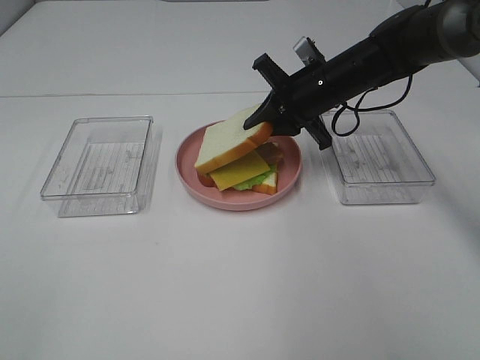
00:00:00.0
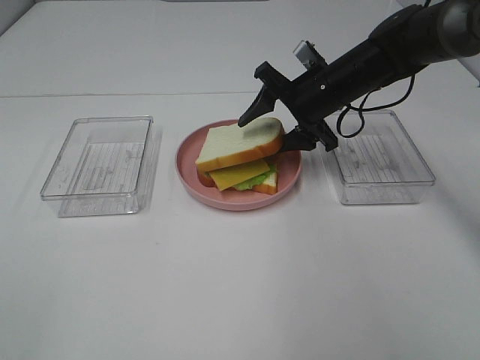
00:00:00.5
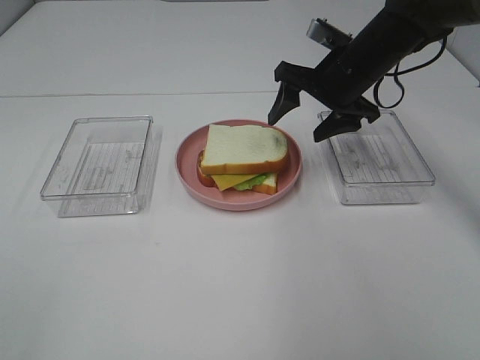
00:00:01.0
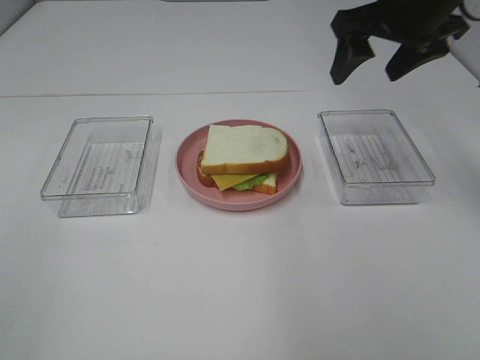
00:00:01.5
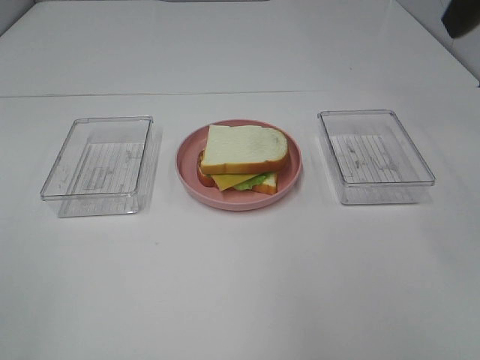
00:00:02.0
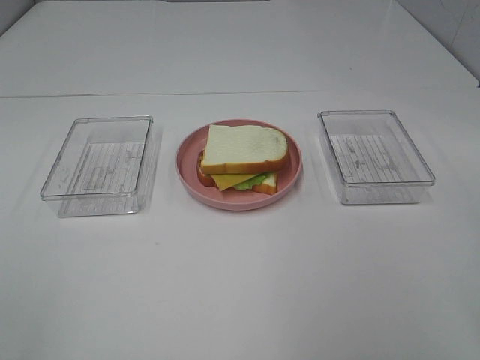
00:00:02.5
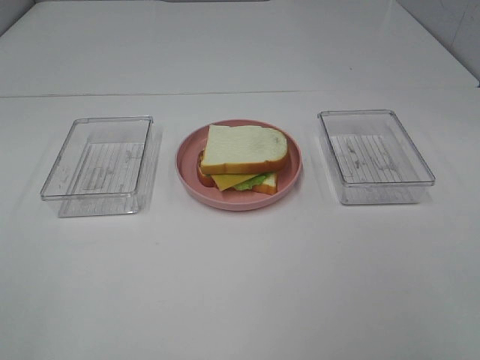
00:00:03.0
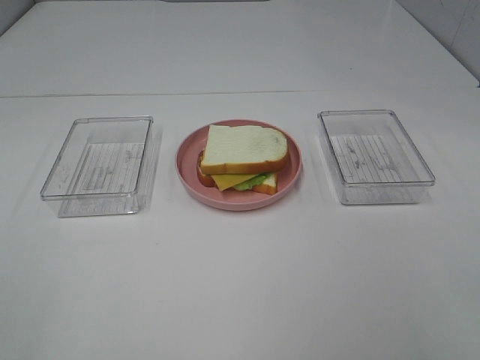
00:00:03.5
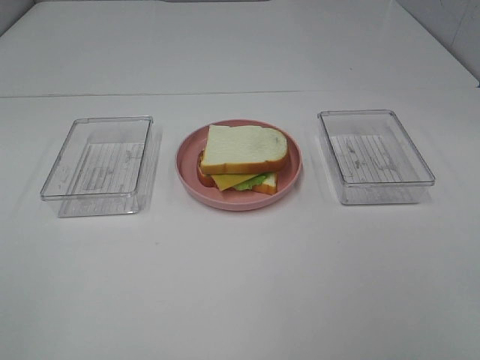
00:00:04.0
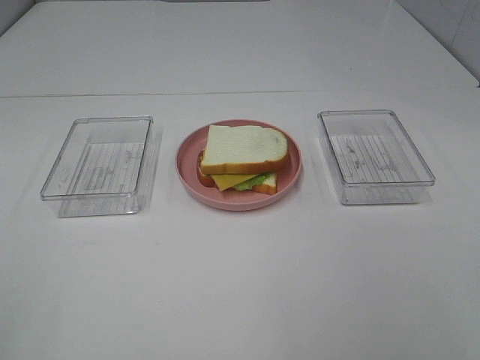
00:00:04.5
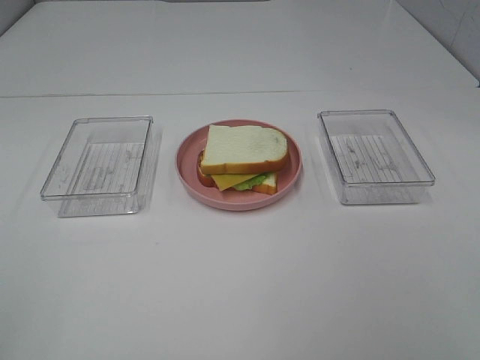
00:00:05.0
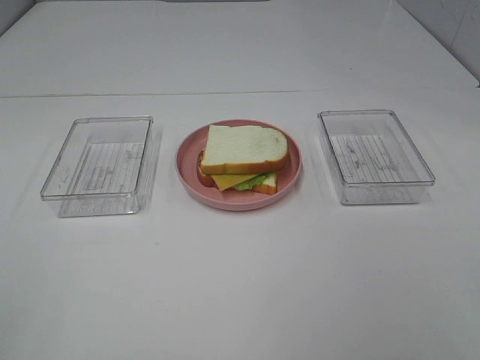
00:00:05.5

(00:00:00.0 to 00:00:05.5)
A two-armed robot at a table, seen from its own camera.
Task of the whole recording: Make sandwiches.
00:00:00.0 - 00:00:02.0: The right gripper moves upward and backward, approximately 30 cm, and opens.
00:00:02.0 - 00:00:03.5: The right gripper is displaced backward and downward by about 25 cm.

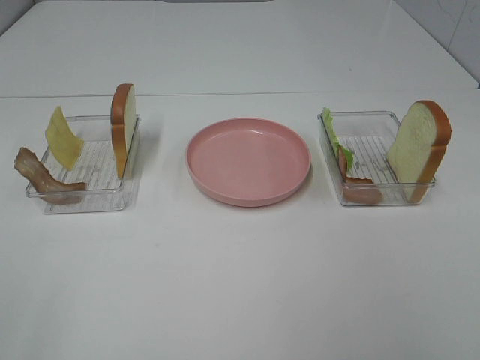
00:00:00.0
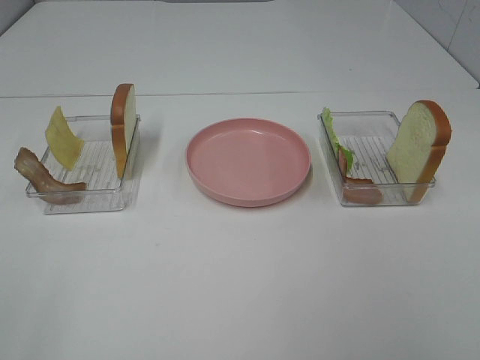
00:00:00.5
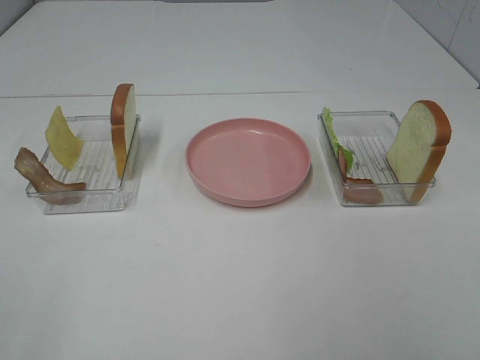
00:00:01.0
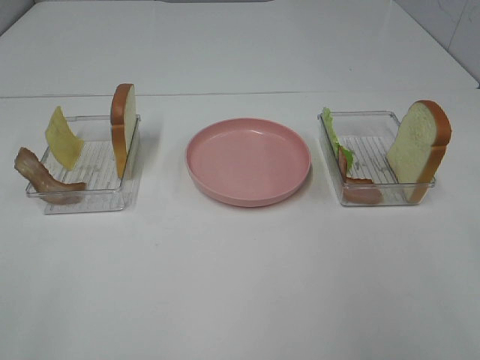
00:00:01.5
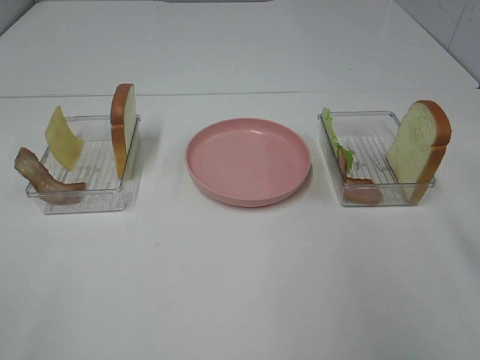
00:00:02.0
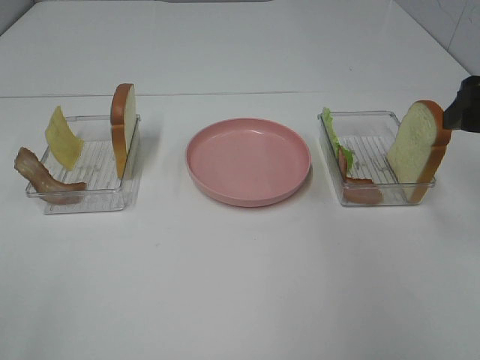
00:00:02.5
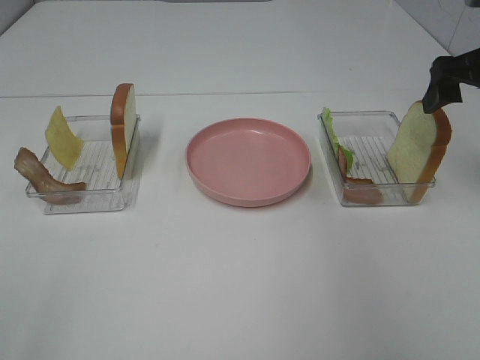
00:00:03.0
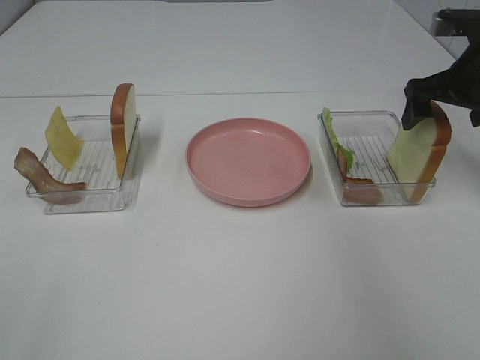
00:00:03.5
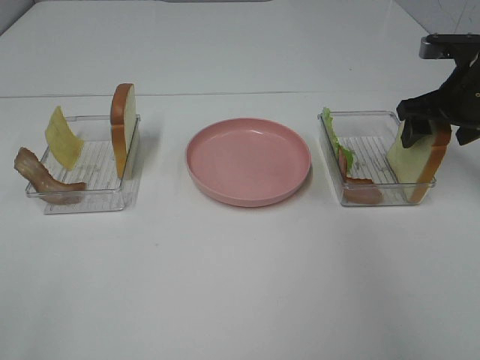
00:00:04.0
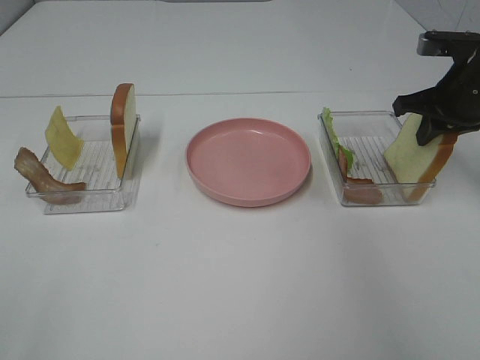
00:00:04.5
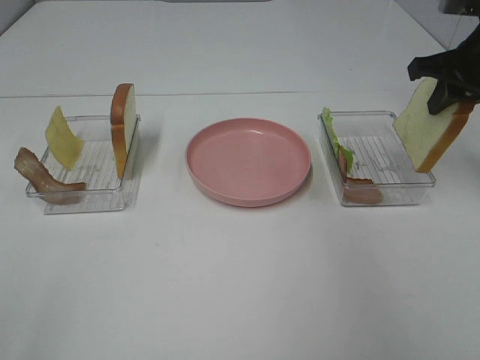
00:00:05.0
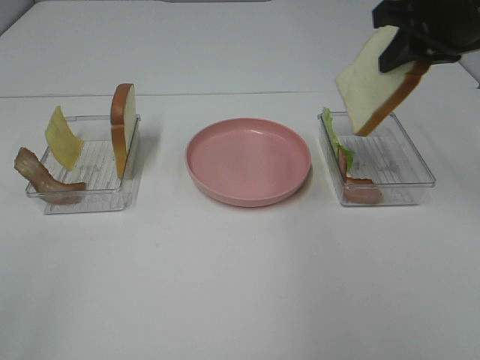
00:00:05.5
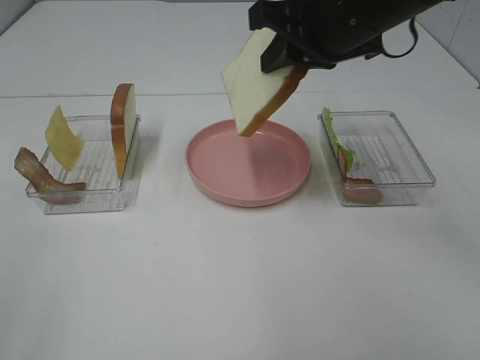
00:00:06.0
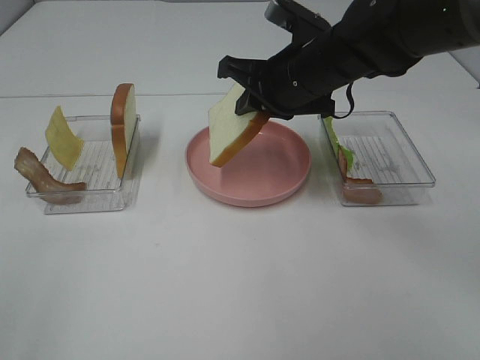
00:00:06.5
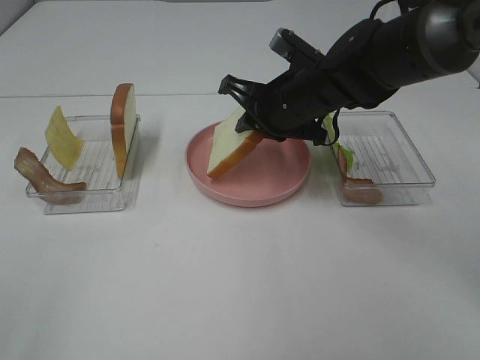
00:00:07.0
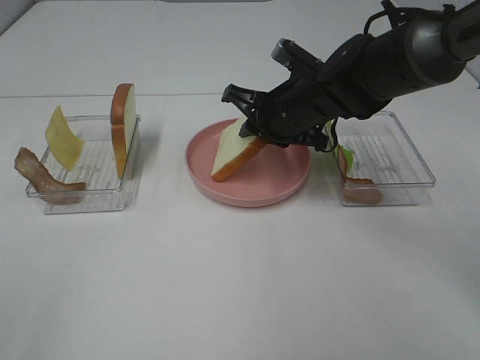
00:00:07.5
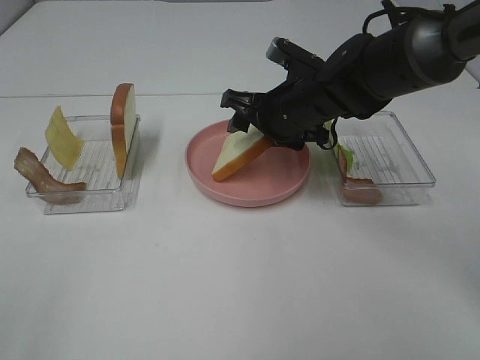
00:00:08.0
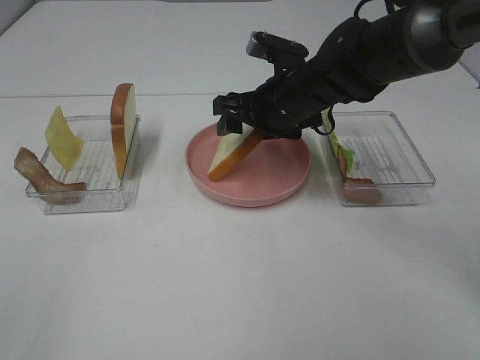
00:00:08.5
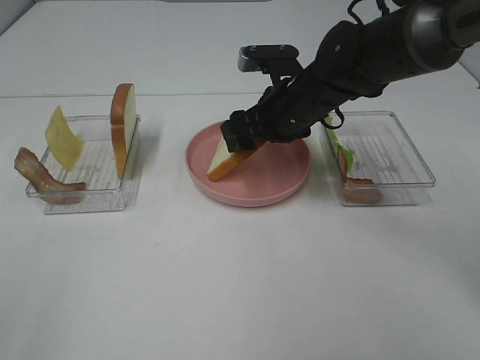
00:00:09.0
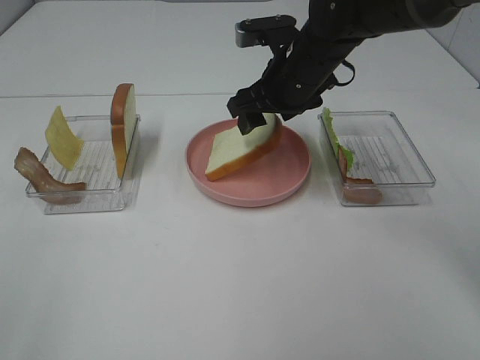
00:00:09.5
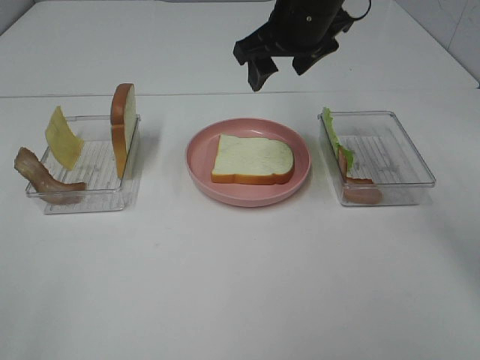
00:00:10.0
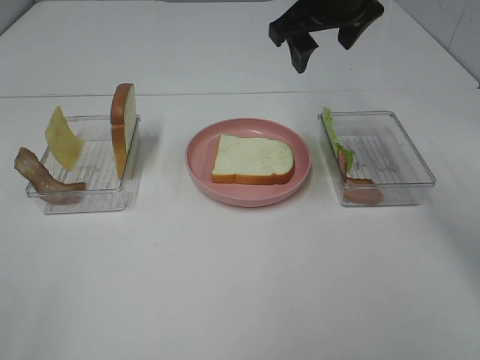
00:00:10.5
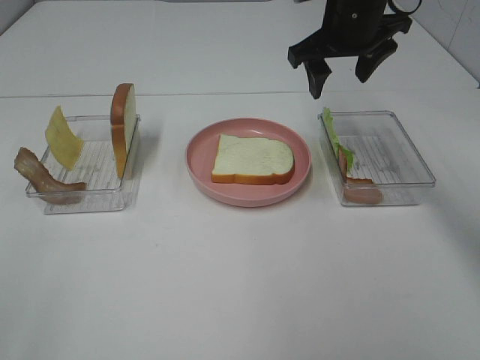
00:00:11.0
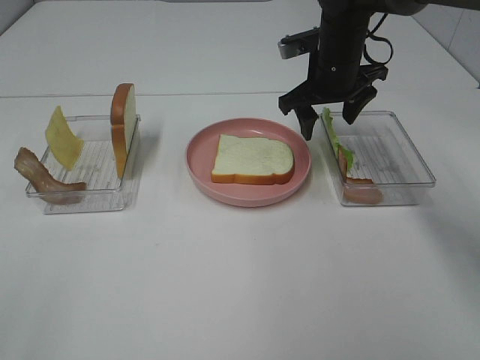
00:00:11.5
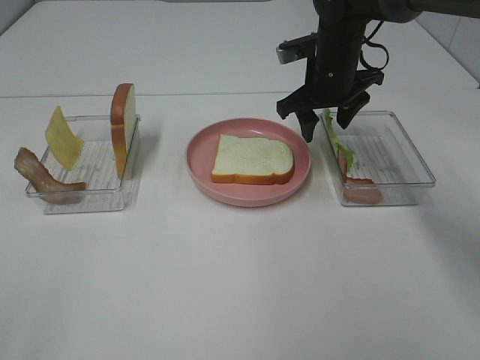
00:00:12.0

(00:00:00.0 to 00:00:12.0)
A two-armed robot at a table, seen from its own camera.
Task of the whole recording: Make sandwiches.
Step, 00:00:00.0 - 00:00:04.5: Right hand:grab the bread slice.
Step, 00:00:05.0 - 00:00:09.5: Right hand:place the bread slice on the plate.
00:00:02.0 - 00:00:04.0: The right gripper moves forward and downward, about 25 cm.
00:00:04.0 - 00:00:06.0: The right gripper heads to the left and upward, covering about 20 cm, and closes its fingers.
00:00:06.0 - 00:00:08.0: The right gripper travels downward by about 15 cm, and opens its fingers.
00:00:08.0 - 00:00:10.0: The right gripper heads upward, covering roughly 10 cm.
00:00:10.0 - 00:00:12.0: The right gripper heads downward, covering roughly 10 cm.

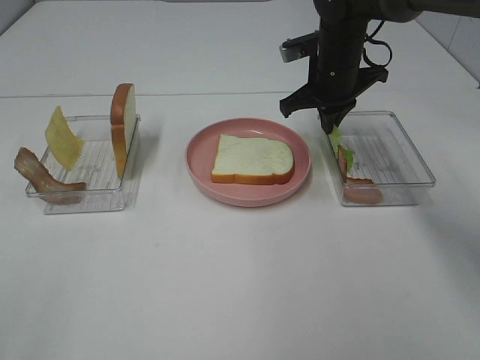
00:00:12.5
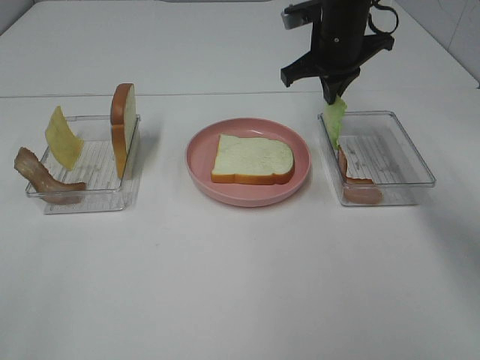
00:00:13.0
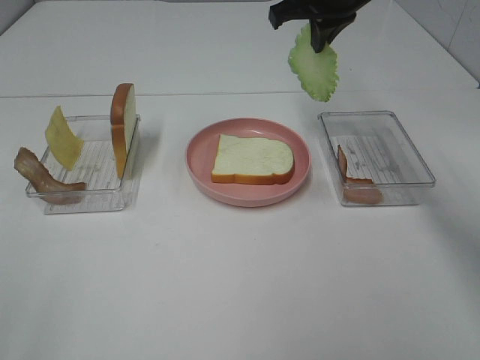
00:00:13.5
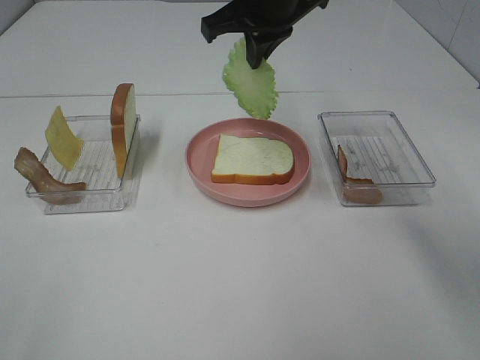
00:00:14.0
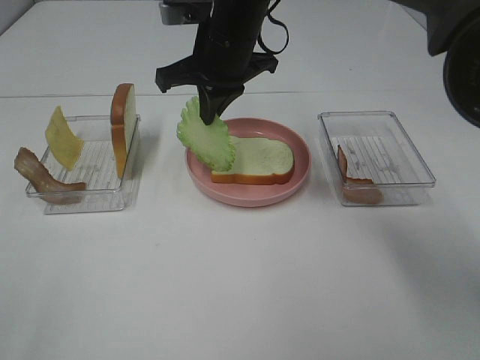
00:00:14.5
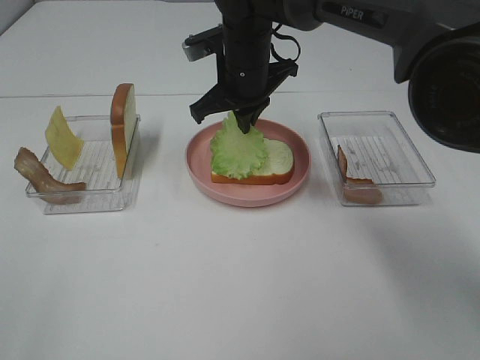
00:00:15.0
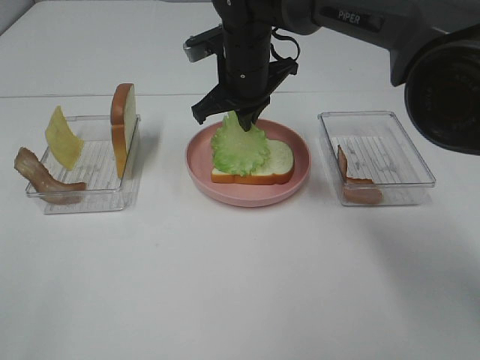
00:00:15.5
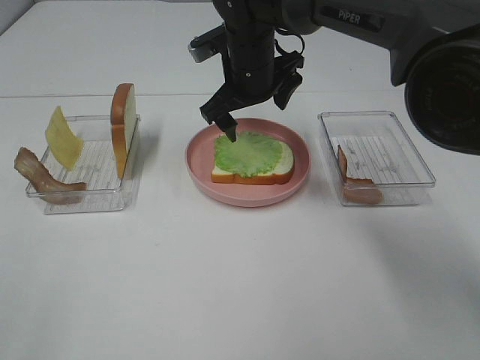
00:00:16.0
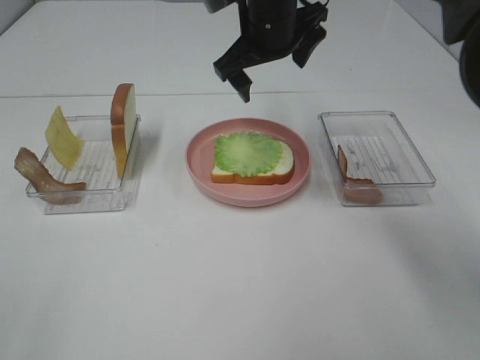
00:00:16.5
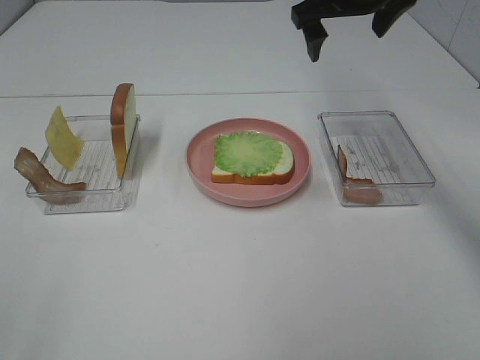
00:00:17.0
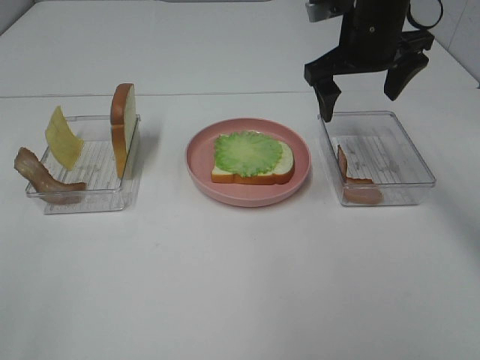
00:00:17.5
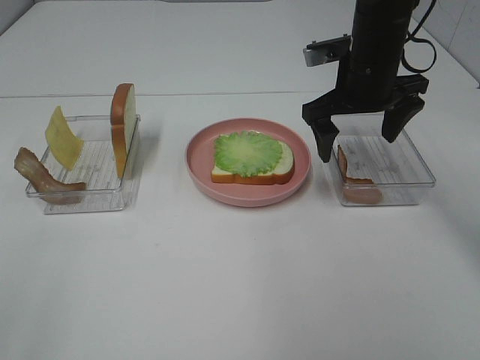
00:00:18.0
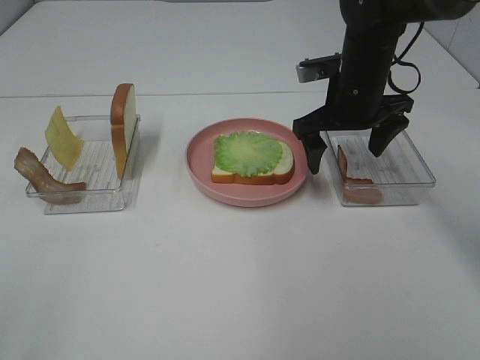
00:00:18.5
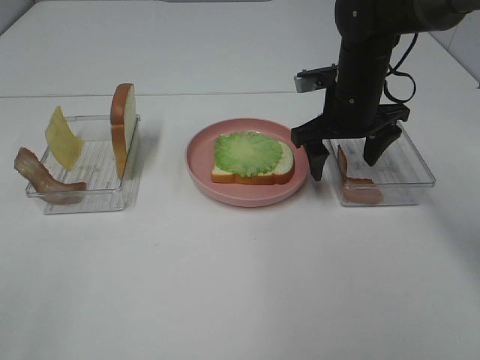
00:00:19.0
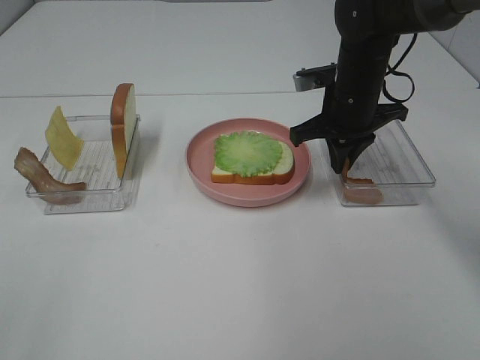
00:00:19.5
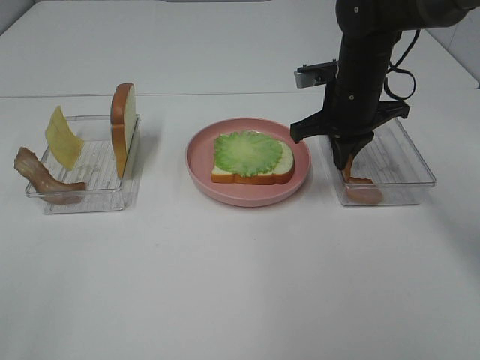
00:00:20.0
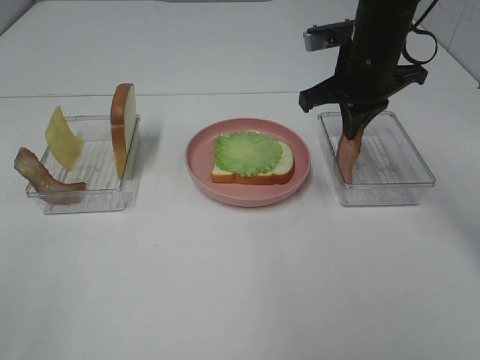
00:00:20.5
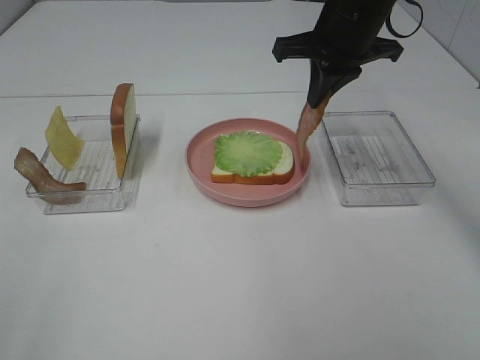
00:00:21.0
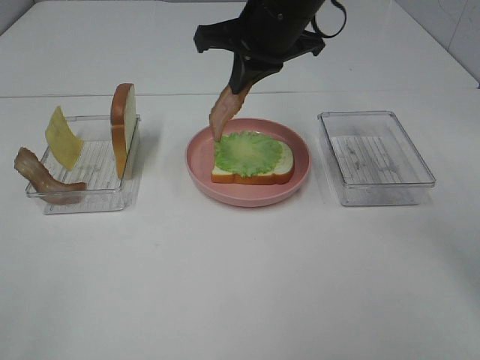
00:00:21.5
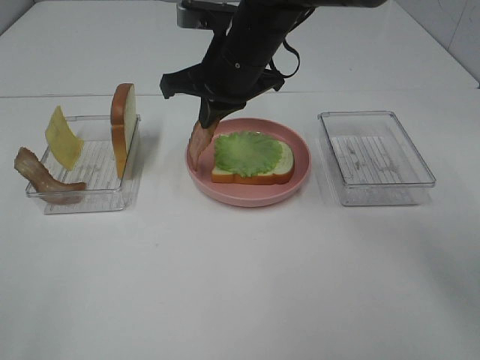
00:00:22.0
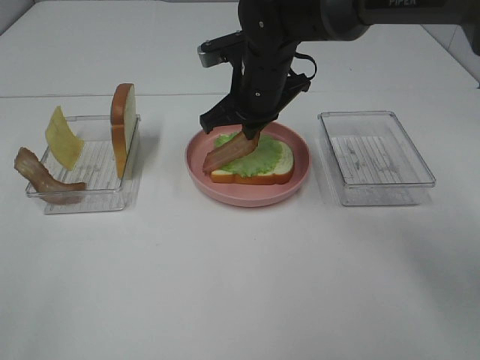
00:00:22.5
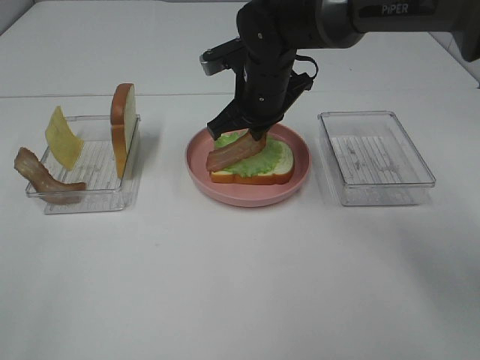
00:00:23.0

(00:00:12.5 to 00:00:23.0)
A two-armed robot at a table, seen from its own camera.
Task of the whole recording: Make sandwiches.
Step, 00:00:13.0 - 00:00:16.0: Right hand:place the lettuce slice on the bread slice.
Step, 00:00:16.5 - 00:00:19.5: Right hand:grab the bacon.
00:00:12.5 - 00:00:14.5: The right gripper shifts approximately 15 cm to the left and upward.
00:00:14.5 - 00:00:16.5: The right gripper moves to the right, approximately 5 cm, and opens up.
00:00:16.5 - 00:00:19.0: The right gripper shifts approximately 15 cm to the right and downward.
00:00:19.0 - 00:00:21.0: The right gripper travels upward by approximately 10 cm, and closes.
00:00:21.0 - 00:00:23.0: The right gripper heads downward and to the left, covering about 15 cm.
